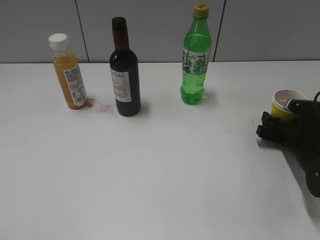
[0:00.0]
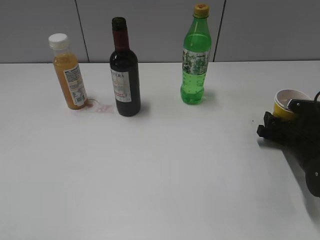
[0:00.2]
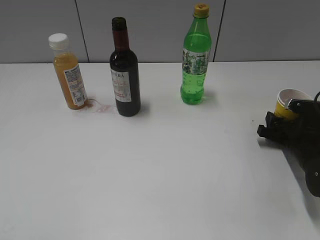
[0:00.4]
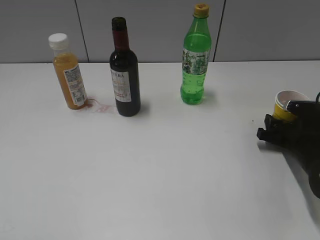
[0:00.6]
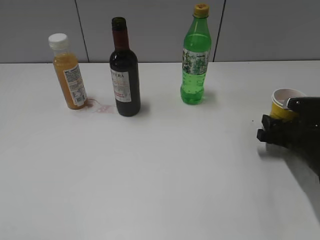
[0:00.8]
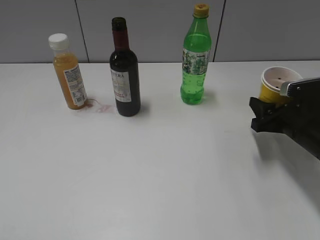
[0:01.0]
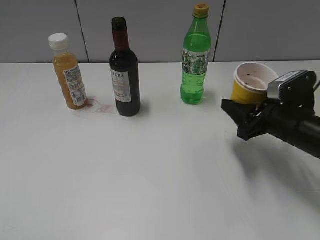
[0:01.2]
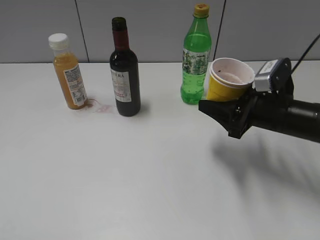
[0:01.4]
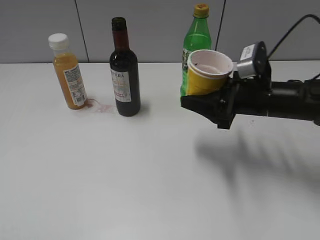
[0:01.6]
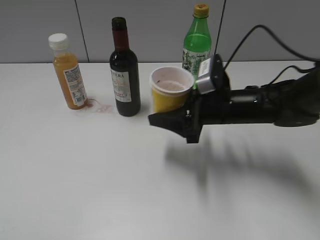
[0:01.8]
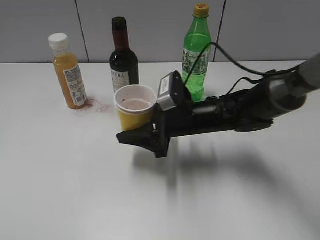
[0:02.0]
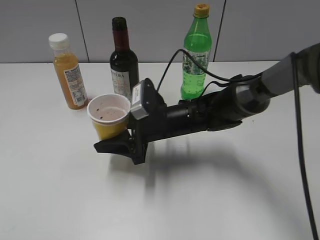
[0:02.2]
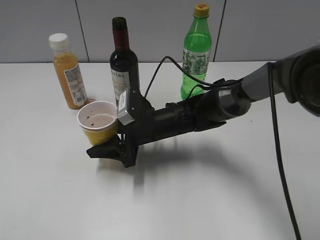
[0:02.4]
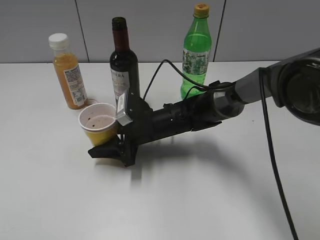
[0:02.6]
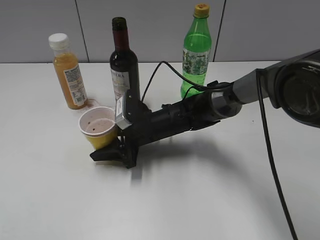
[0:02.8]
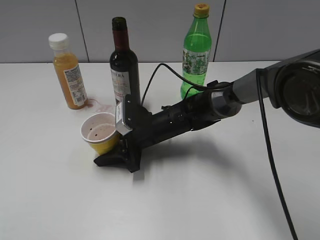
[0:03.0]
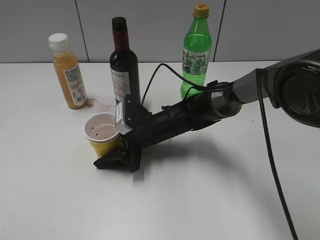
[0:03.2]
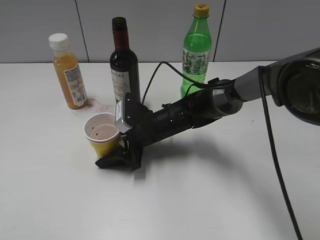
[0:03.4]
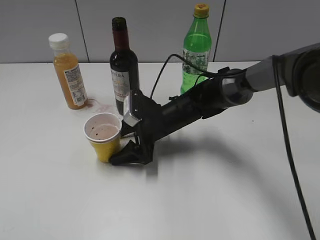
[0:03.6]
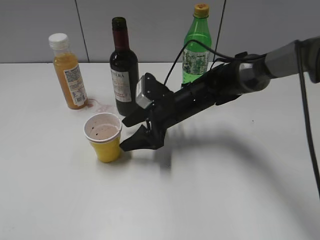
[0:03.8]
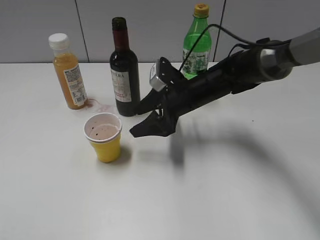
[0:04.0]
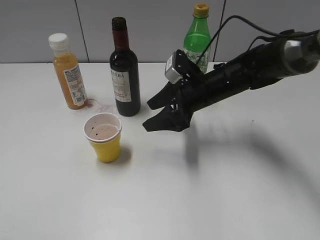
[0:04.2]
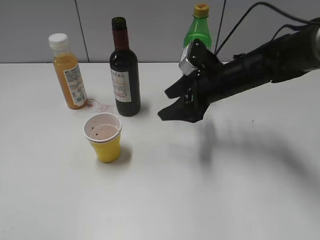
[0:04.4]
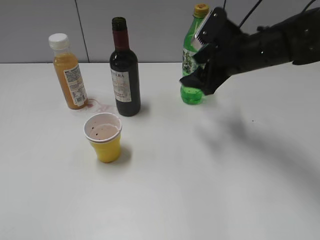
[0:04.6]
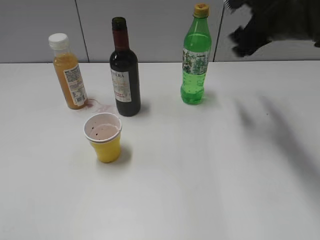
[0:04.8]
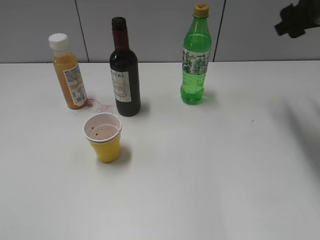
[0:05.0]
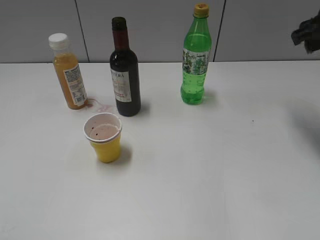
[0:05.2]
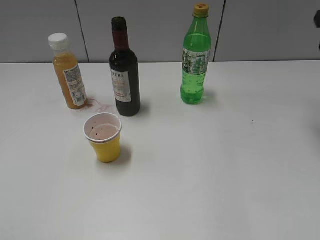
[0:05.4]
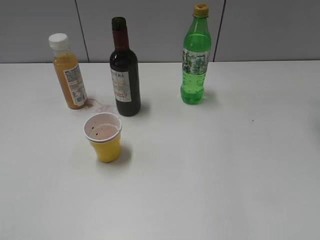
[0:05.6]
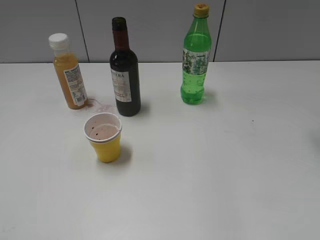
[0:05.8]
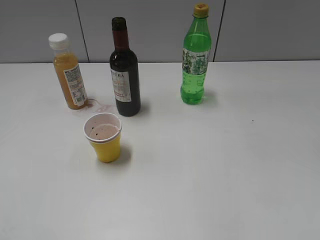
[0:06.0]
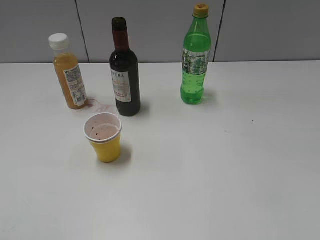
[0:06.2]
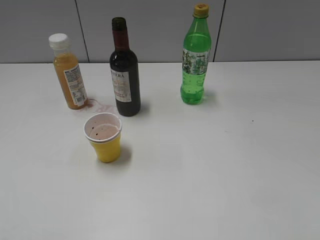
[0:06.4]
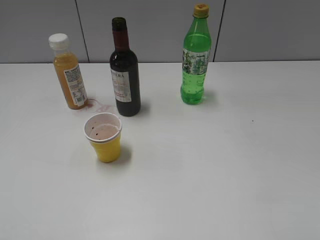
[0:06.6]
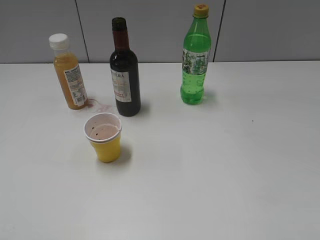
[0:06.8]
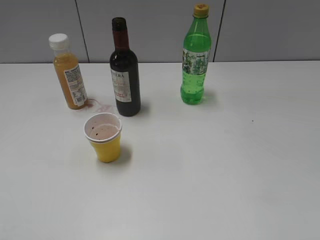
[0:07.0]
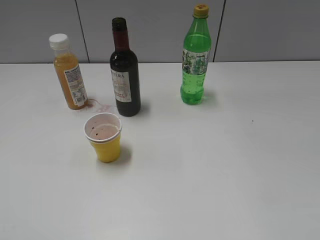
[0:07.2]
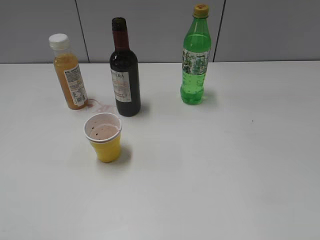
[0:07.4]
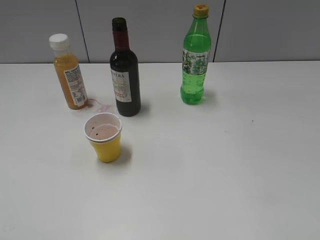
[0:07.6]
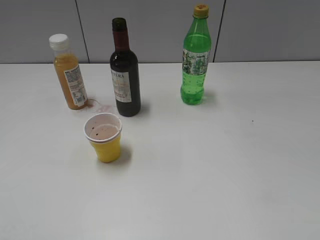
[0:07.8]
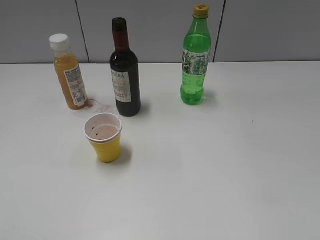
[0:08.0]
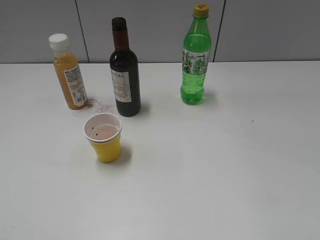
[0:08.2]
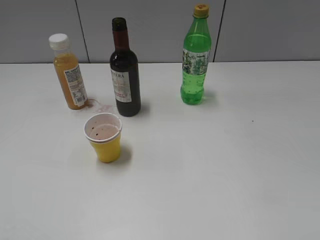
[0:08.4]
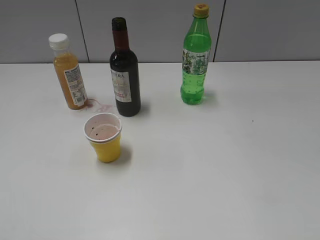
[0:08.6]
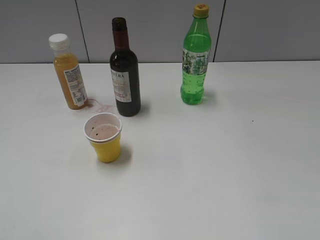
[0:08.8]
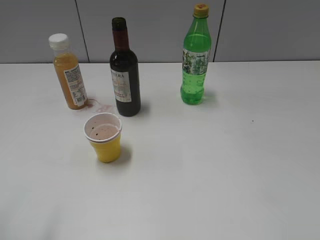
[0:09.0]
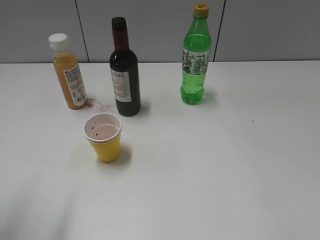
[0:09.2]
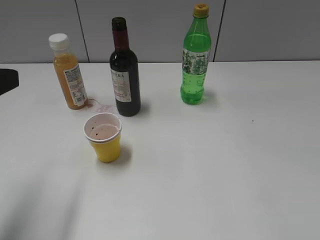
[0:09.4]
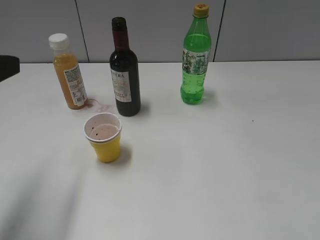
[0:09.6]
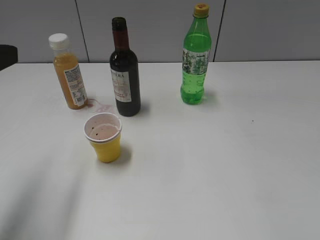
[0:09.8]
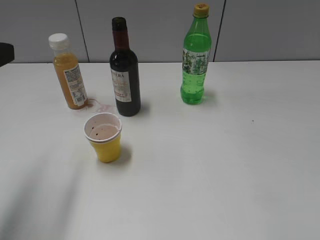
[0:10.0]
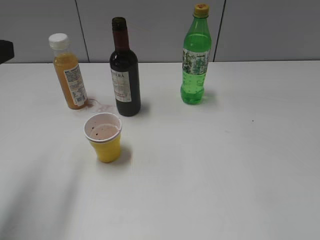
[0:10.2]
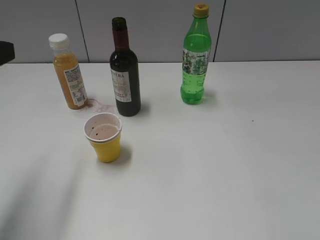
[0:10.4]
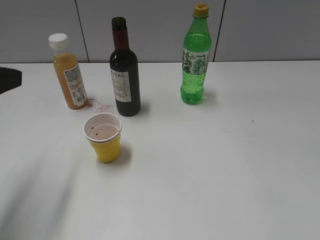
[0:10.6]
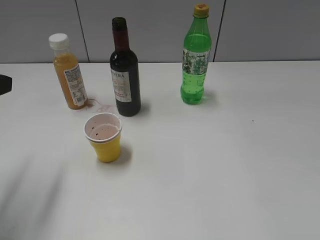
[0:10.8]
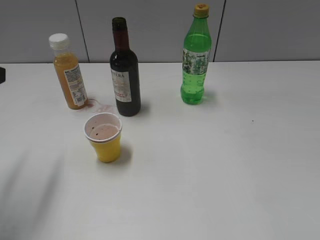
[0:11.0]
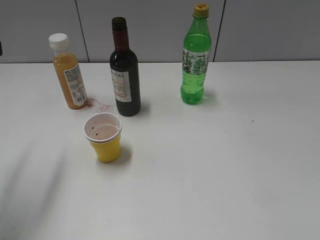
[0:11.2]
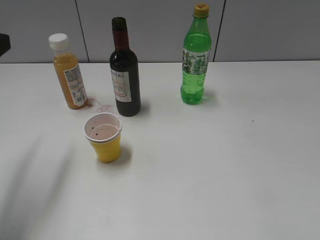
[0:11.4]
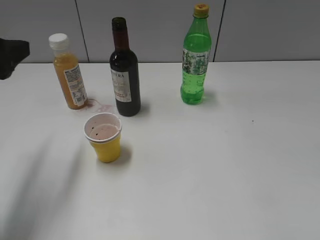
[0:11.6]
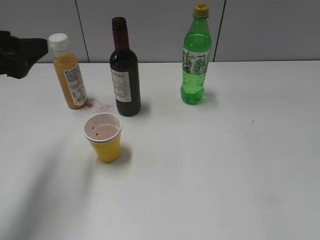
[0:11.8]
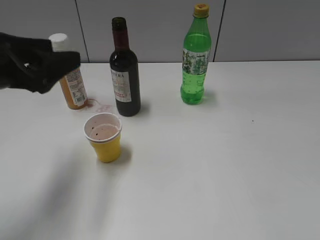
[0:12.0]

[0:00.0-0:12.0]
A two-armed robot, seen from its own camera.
Step, 0:00.2 to 0:03.8: Place the yellow paper cup on the table with right gripper.
0:00.0 to 0:01.6: The right gripper travels upward and to the left by roughly 15 cm, and closes up.
0:01.6 to 0:03.0: The right gripper goes roughly 20 cm to the left and downward.
0:03.0 to 0:04.4: The right gripper goes some 15 cm to the right and upward, and opens its fingers.
0:04.4 to 0:06.0: The right gripper heads upward and to the right, covering roughly 30 cm.
0:09.0 to 0:10.4: The left gripper is displaced forward by some 10 cm.
0:10.4 to 0:12.0: The left gripper moves forward, about 5 cm.

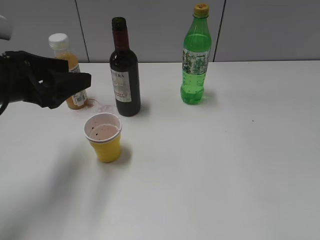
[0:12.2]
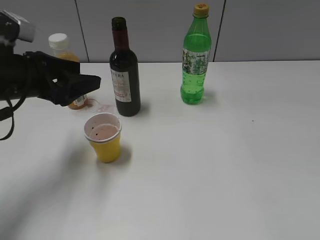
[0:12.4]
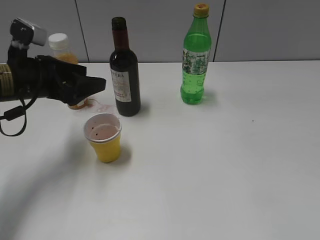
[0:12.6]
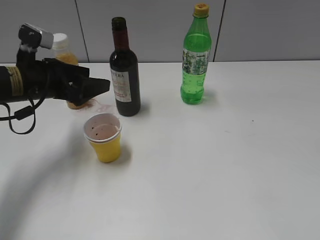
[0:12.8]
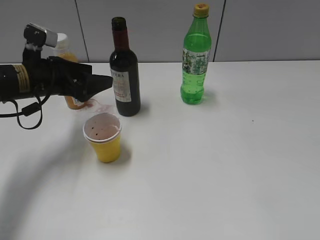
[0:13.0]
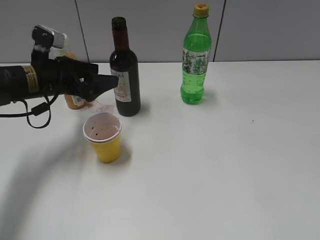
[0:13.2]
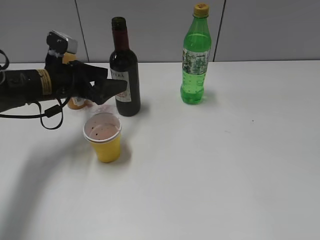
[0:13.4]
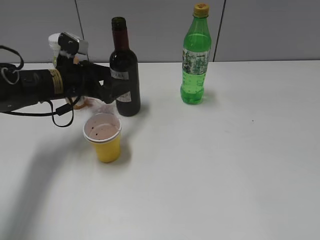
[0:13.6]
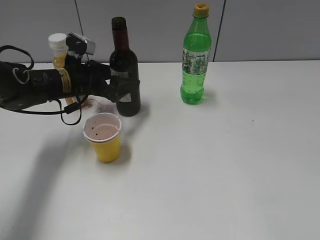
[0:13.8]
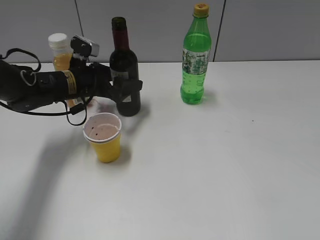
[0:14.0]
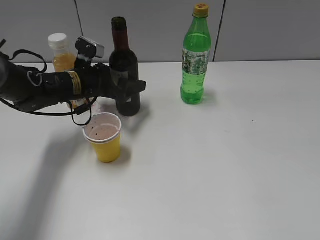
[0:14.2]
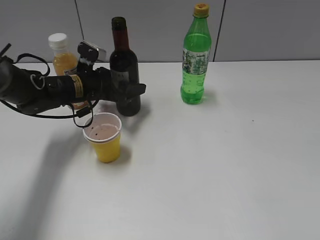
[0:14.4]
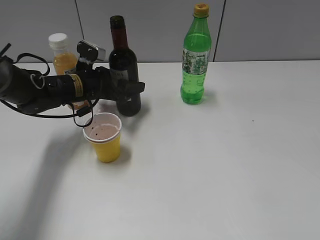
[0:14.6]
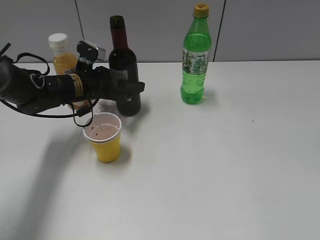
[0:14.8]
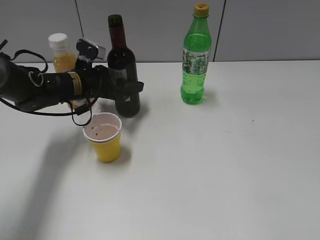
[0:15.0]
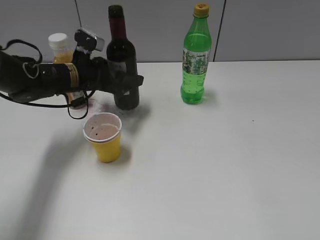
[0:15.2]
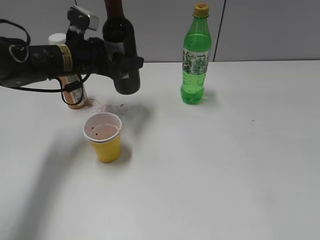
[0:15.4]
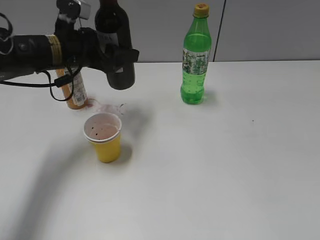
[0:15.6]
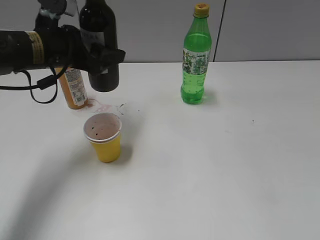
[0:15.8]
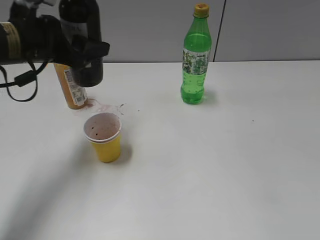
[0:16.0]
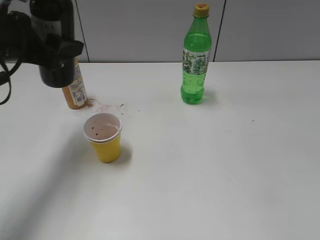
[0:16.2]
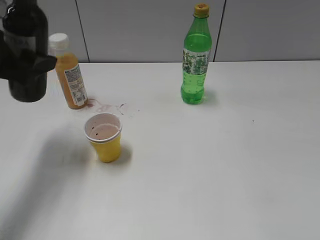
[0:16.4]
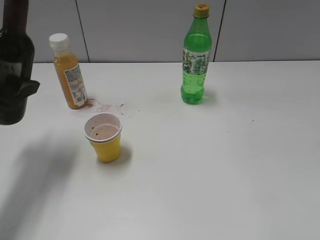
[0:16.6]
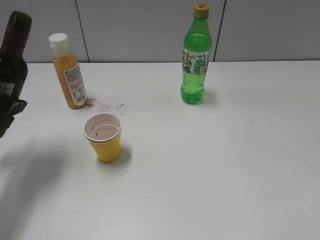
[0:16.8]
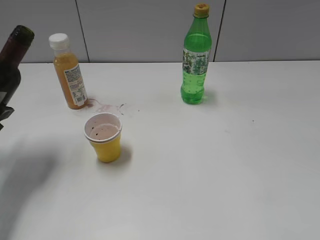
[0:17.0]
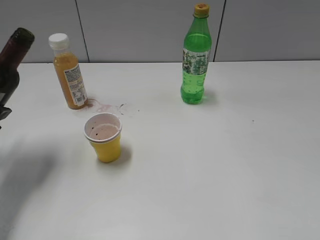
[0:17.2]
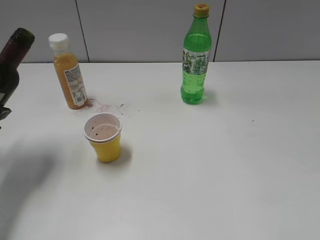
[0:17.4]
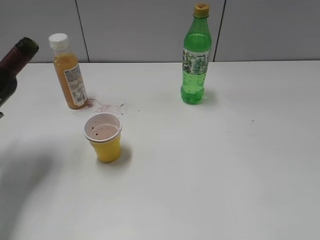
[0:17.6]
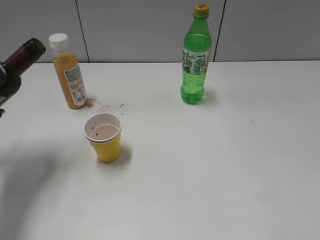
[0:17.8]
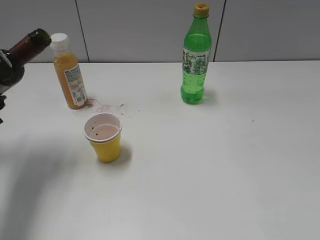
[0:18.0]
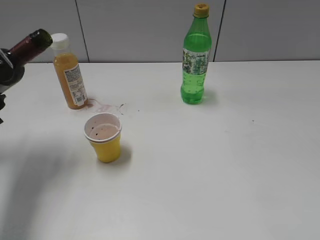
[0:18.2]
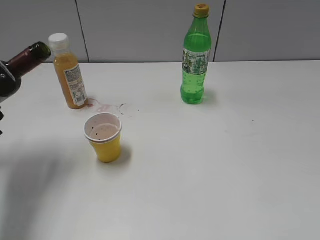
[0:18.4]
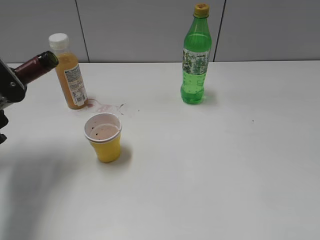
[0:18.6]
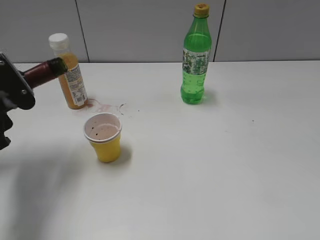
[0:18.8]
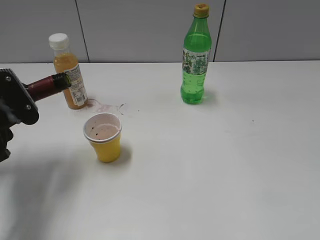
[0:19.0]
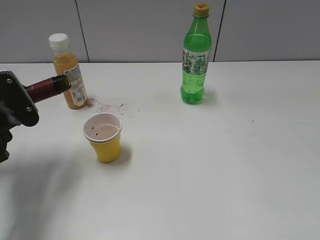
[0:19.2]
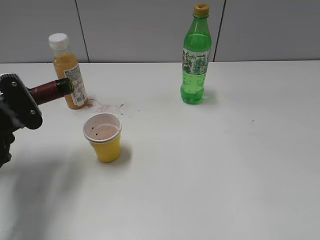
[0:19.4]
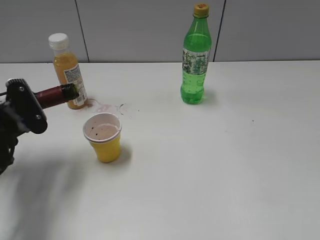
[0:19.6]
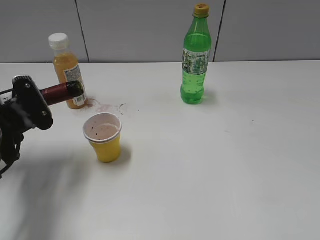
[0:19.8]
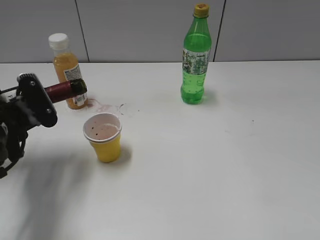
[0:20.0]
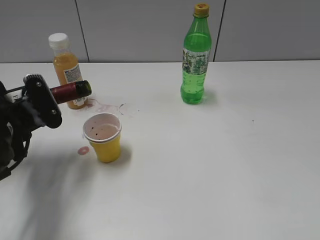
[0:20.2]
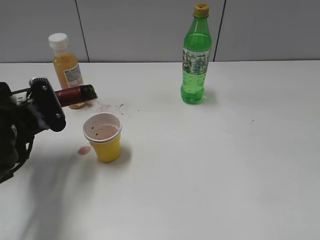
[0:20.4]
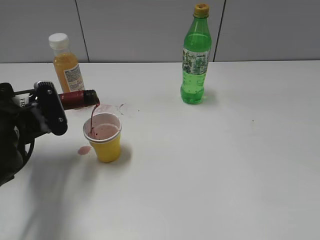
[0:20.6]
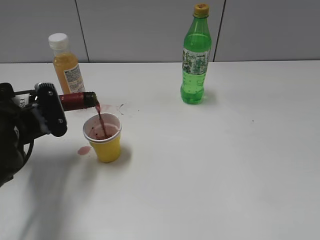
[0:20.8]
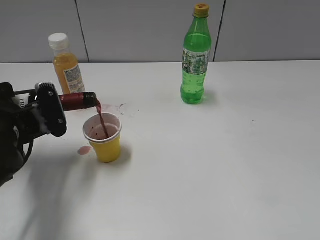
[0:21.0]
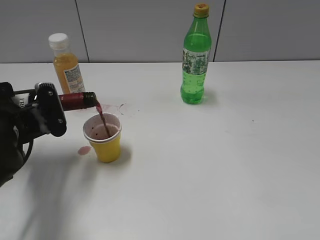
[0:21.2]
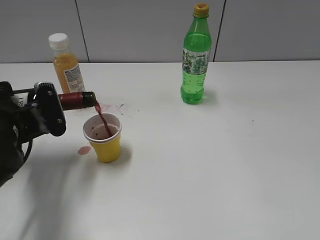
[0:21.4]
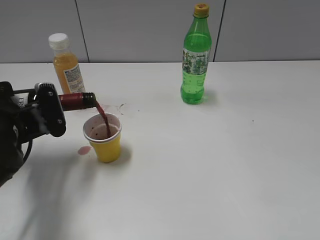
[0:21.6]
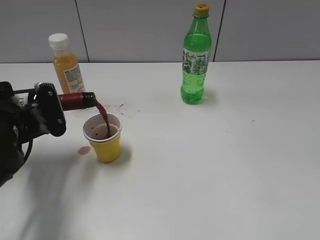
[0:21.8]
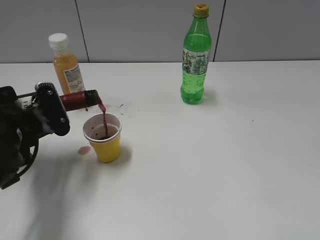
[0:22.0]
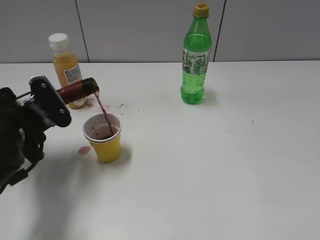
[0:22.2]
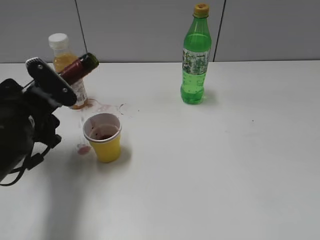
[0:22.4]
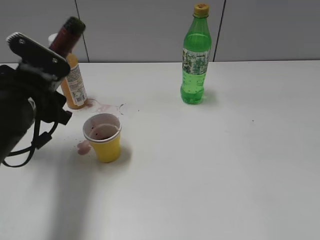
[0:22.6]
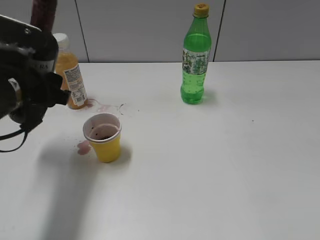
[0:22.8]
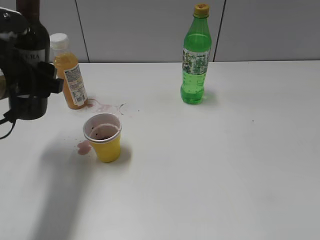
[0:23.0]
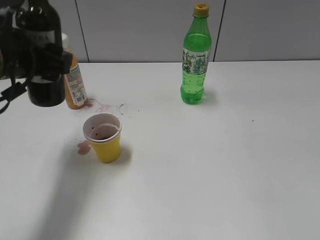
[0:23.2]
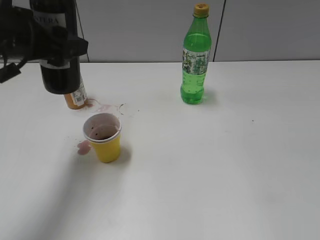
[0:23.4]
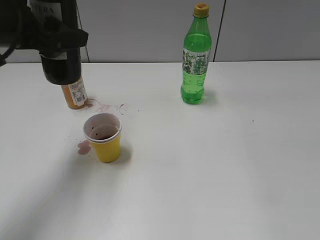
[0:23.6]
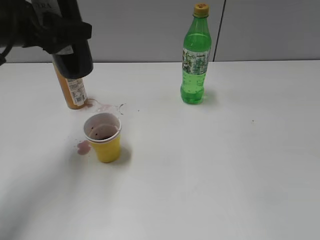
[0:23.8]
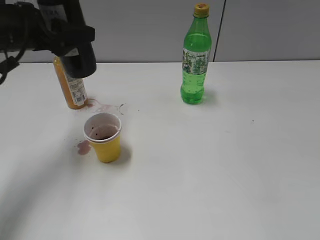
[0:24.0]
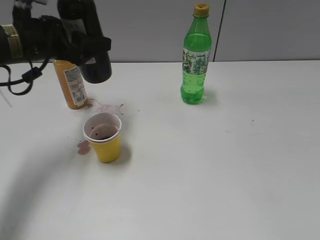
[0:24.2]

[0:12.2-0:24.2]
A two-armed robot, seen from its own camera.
Step, 0:12.2 to 0:14.8: Grasp the bottle with red wine with left gripper.
Step, 0:15.0 to 0:22.4: Pour the red wine from bottle to cup with left gripper.
0:12.2 to 0:13.8: The left gripper heads forward, downward and to the right, covering about 20 cm.
0:13.8 to 0:15.2: The grippers stay close to where they were, moving slightly.
0:15.2 to 0:16.6: The left gripper moves backward, to the left and upward, approximately 20 cm.
0:18.2 to 0:19.8: The left gripper moves downward, about 5 cm.
0:19.8 to 0:21.2: The grippers move only a little.
0:22.6 to 0:24.2: The left gripper is displaced forward by about 10 cm.
